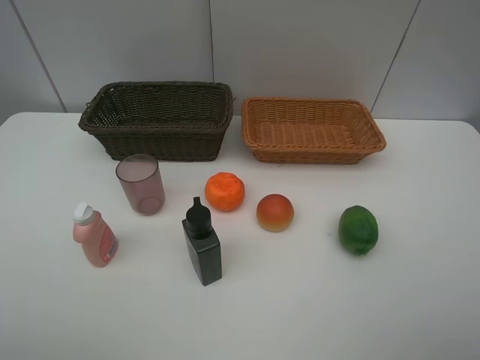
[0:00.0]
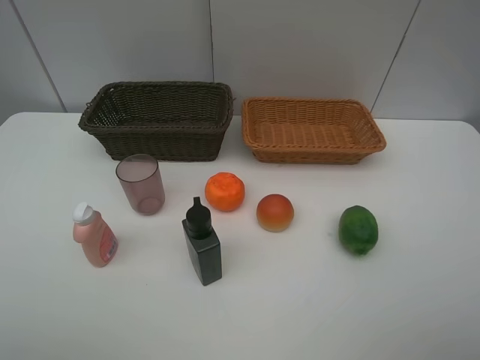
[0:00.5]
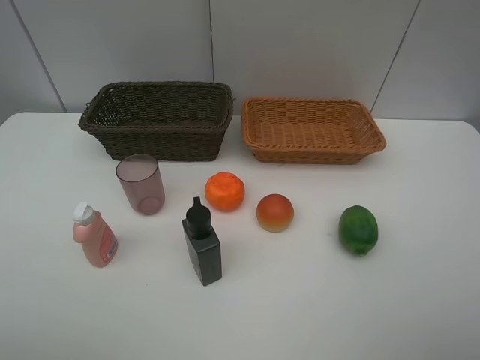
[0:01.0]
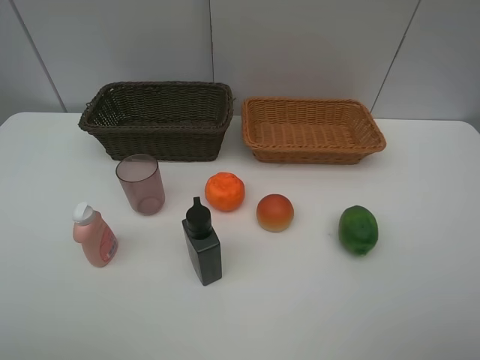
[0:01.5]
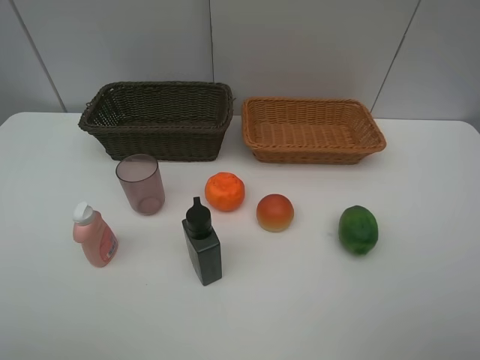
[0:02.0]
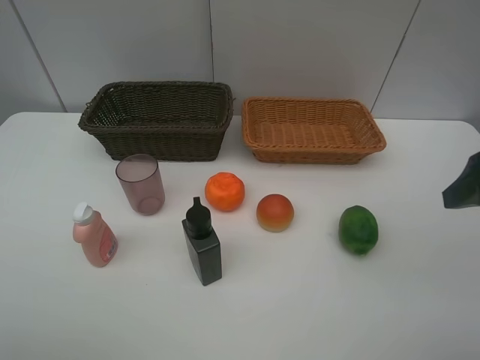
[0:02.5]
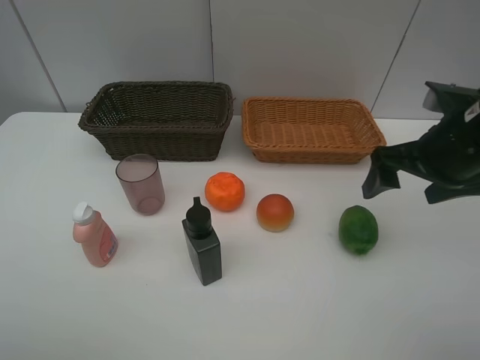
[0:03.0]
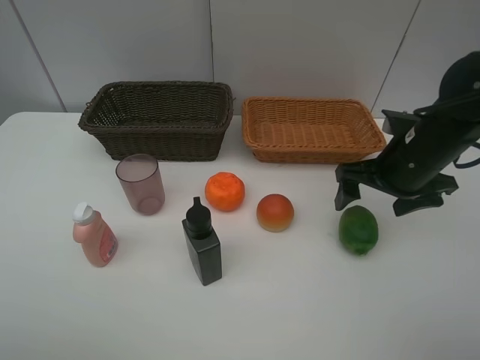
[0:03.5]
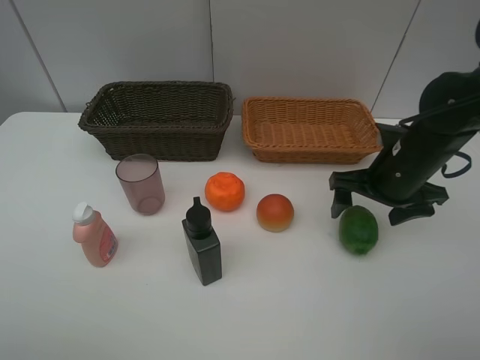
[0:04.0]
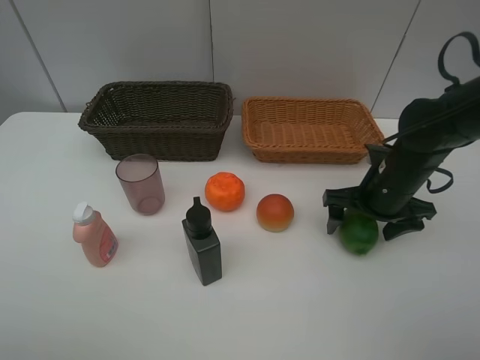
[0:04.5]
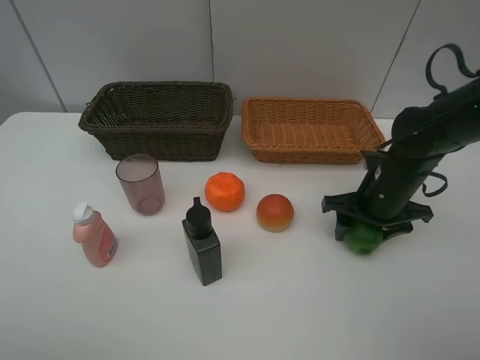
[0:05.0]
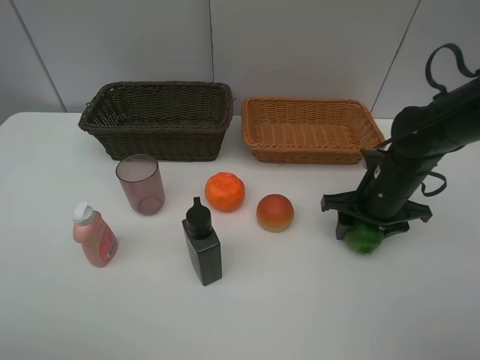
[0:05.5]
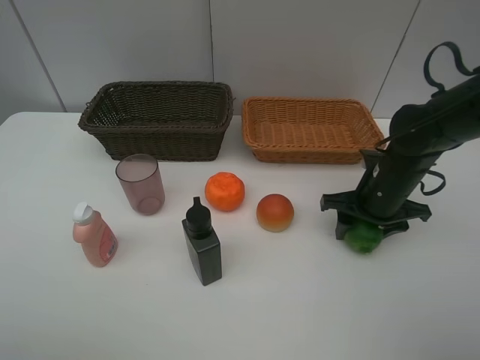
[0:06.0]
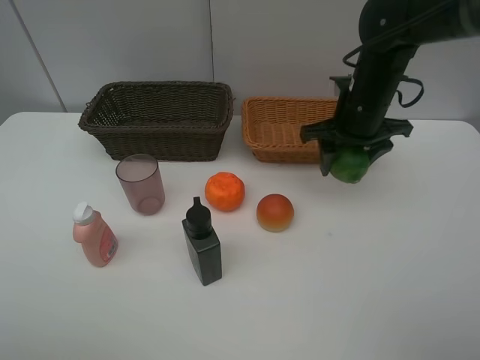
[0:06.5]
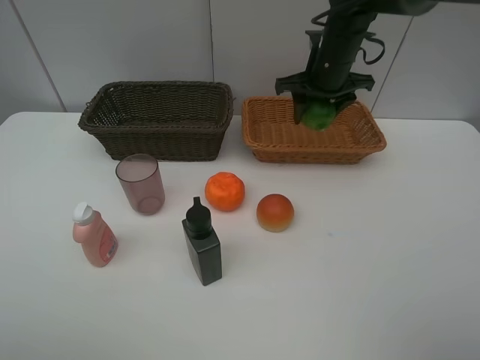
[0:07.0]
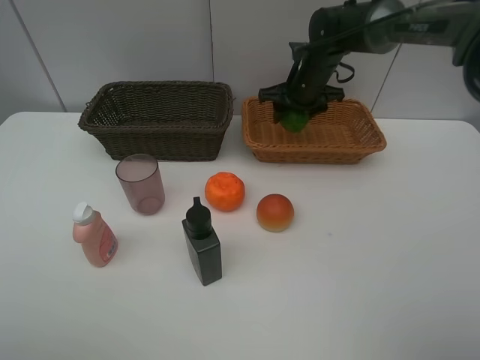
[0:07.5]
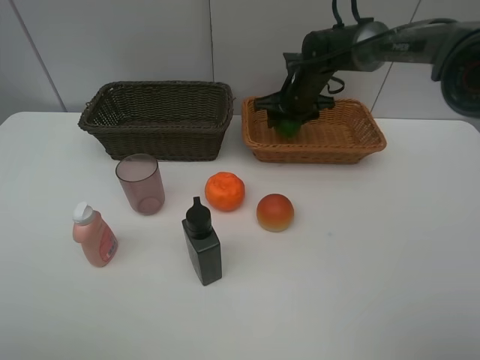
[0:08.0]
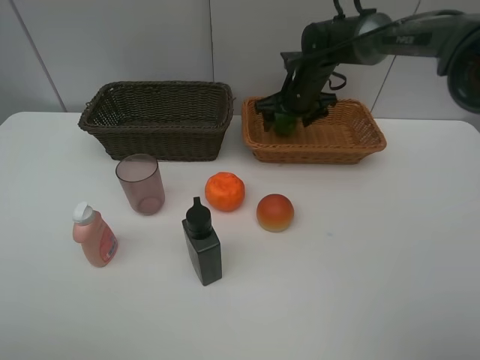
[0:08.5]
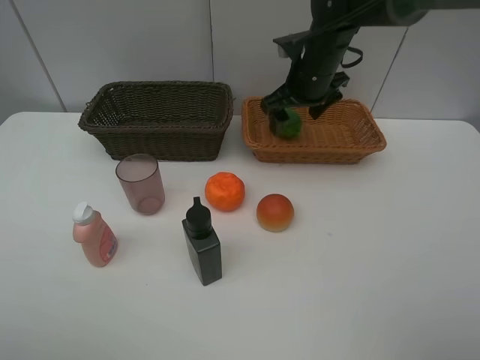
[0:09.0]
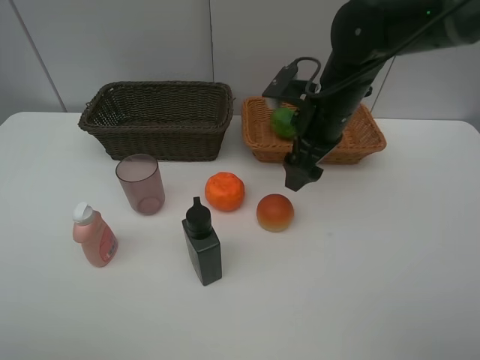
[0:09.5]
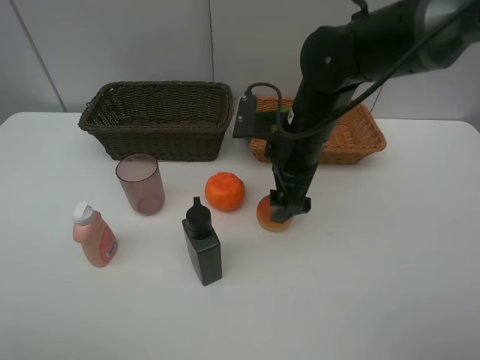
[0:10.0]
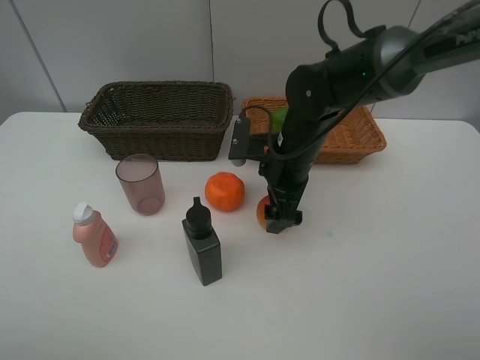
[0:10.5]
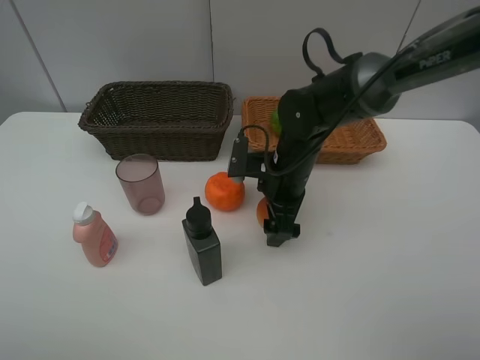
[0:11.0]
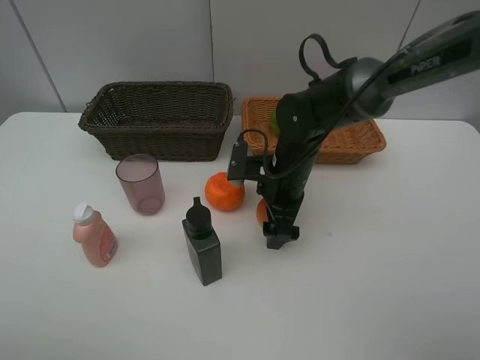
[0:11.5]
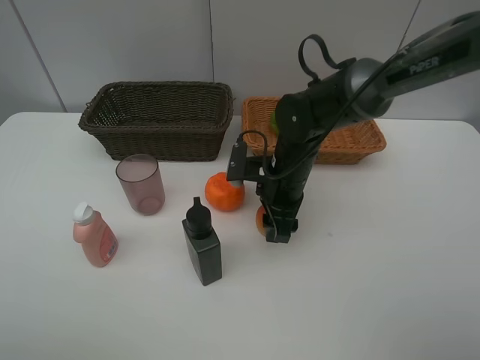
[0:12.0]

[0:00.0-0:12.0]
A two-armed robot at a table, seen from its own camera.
Task of the whole recording: place multiple objects separately in different baskets.
0:02.0 to 0:04.0: The right gripper travels forward and downward by roughly 30 cm.
0:04.0 to 0:06.0: The right gripper closes its fingers.
0:06.0 to 0:08.0: The right gripper goes approximately 25 cm forward and to the left.
0:08.0 to 0:10.0: The right gripper travels backward by roughly 20 cm, and opens up.
0:10.0 to 0:12.0: The right gripper is displaced downward by some 10 cm, and closes up.

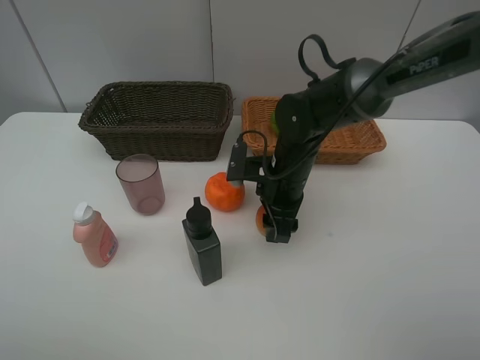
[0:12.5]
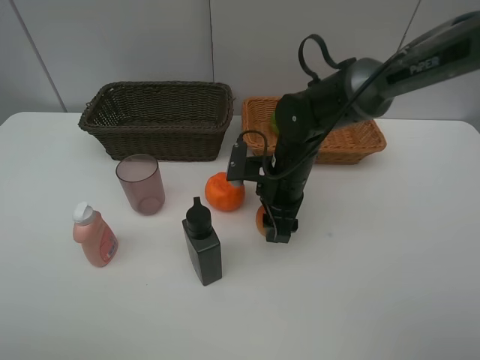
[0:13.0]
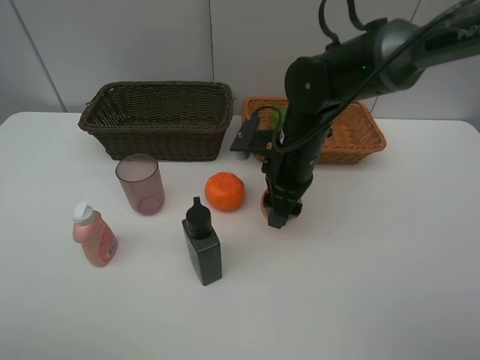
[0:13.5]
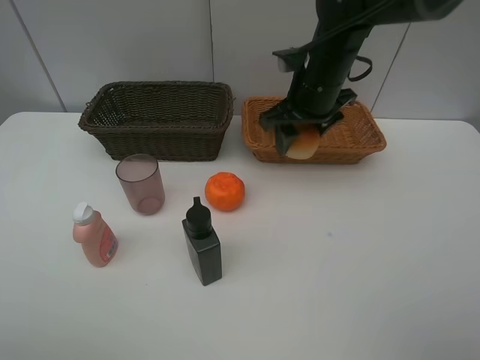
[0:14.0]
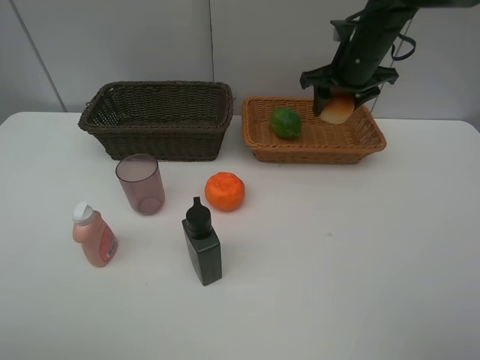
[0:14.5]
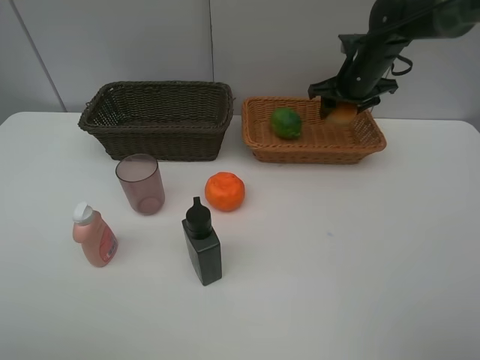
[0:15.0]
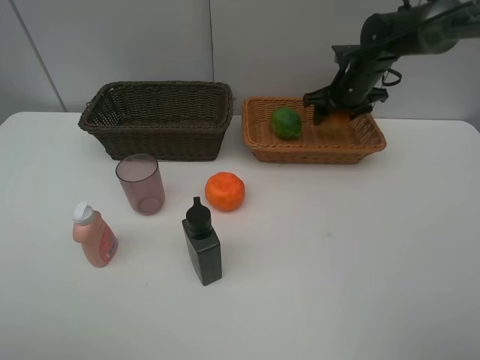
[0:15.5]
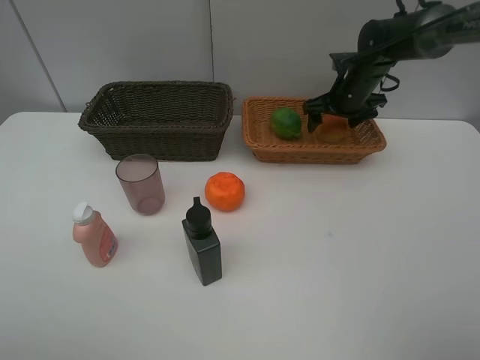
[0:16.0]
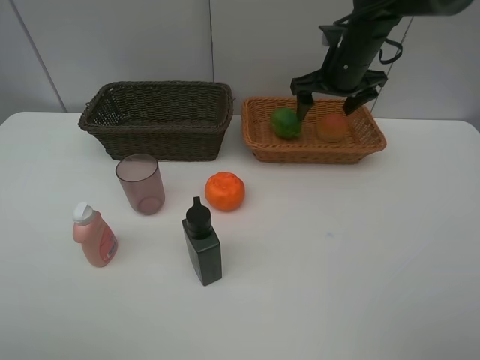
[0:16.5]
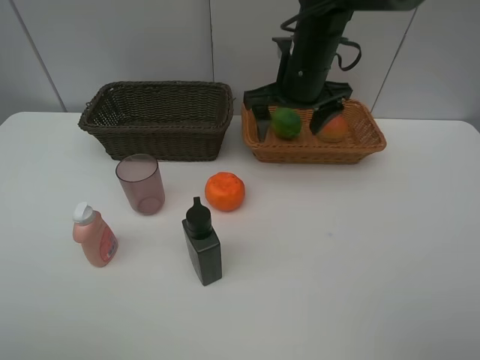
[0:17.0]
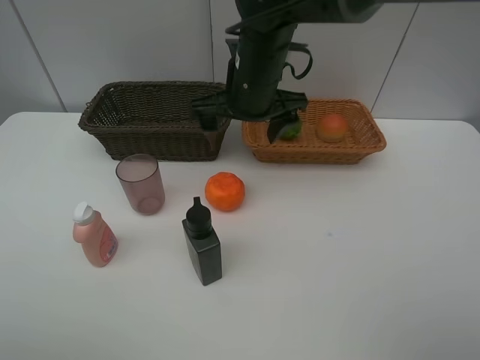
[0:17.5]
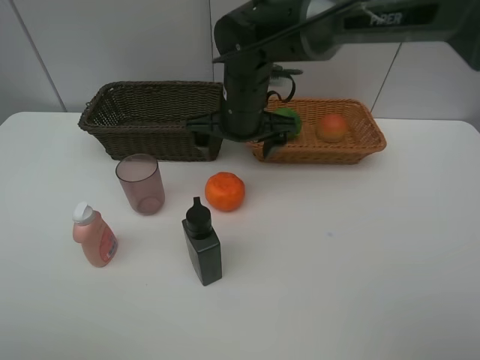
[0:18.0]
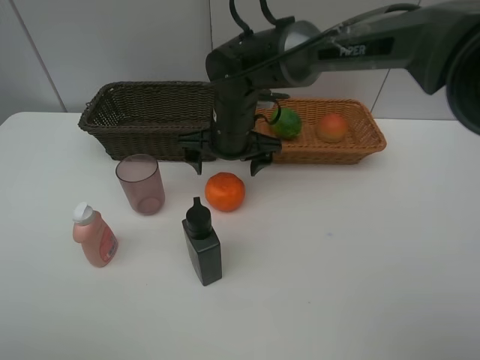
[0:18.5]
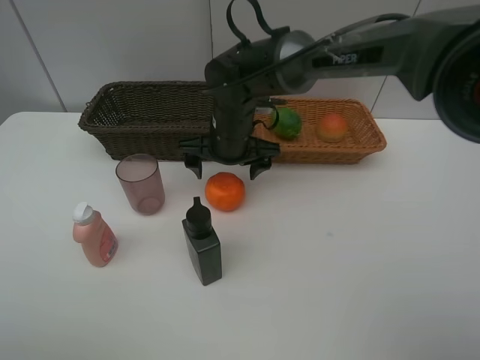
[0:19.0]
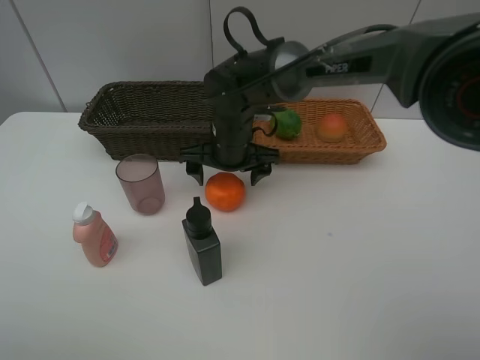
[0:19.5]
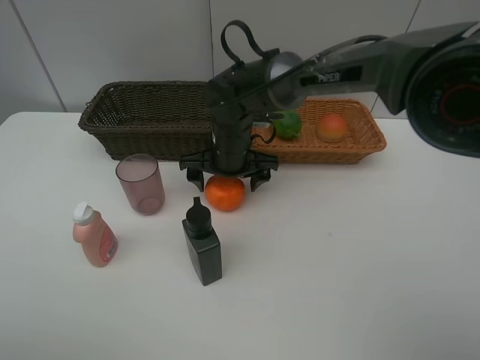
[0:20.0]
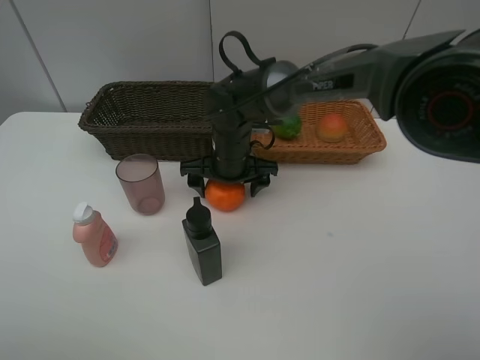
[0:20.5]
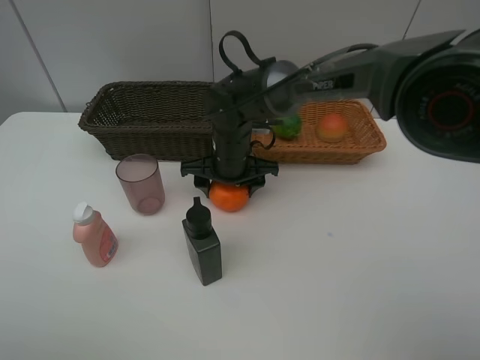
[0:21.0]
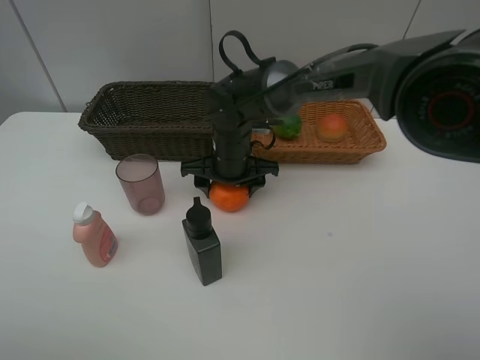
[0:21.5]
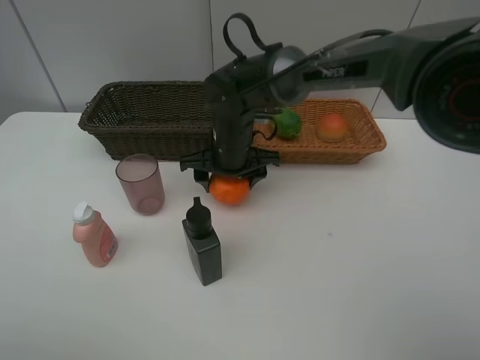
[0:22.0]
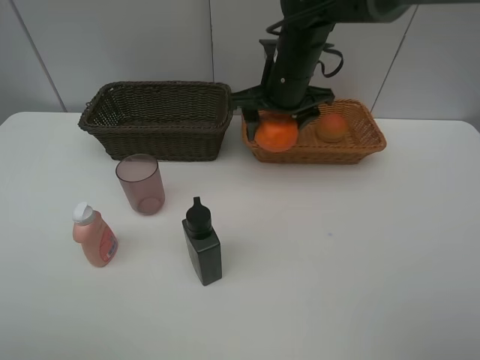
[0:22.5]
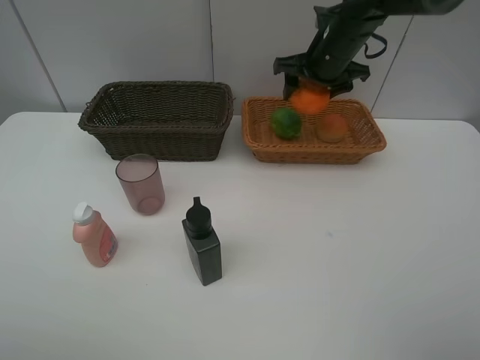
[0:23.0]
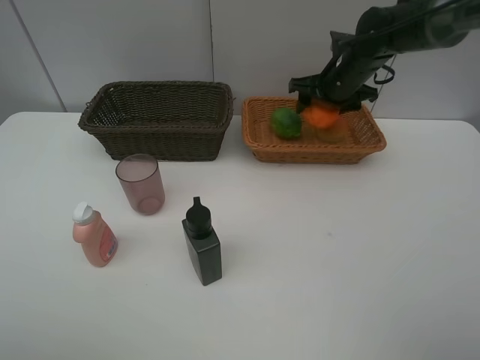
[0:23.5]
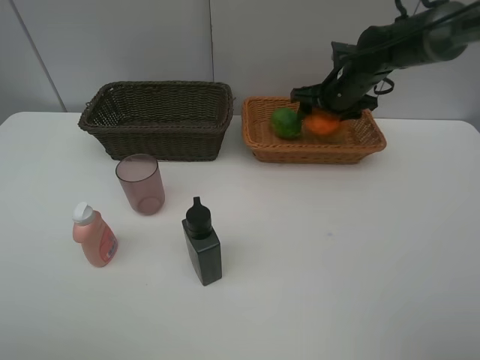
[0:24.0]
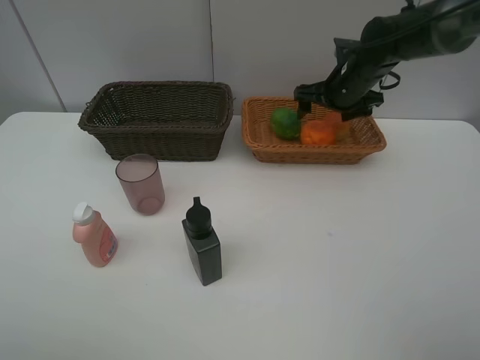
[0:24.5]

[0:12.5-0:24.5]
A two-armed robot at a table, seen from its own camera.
Task of the whole recording: place multiple objects separately in different baskets.
0:12.5 to 0:14.5: The right gripper shifts about 20 cm upward, forward and to the right.
0:14.5 to 0:16.5: The right gripper opens its fingers.
0:16.5 to 0:18.5: The right gripper moves to the left, backward and downward, roughly 20 cm.
0:18.5 to 0:20.5: There are only small adjustments of the grippers.
0:20.5 to 0:22.5: The right gripper heads upward and to the right, covering roughly 15 cm.
0:22.5 to 0:24.5: The right gripper is displaced to the right and forward by roughly 10 cm, and opens up.

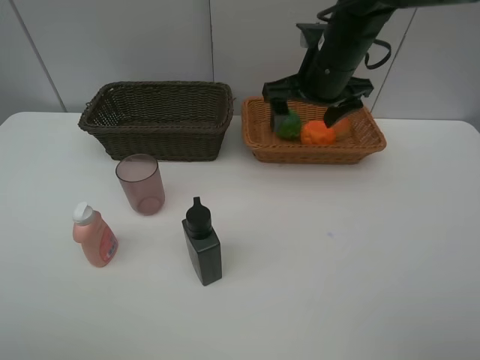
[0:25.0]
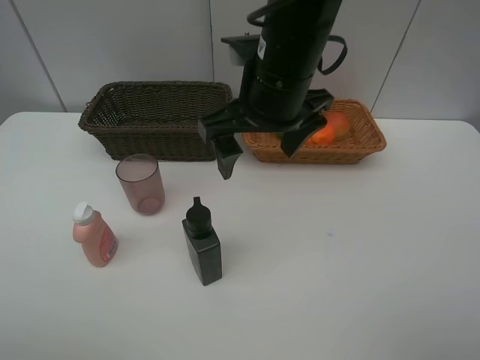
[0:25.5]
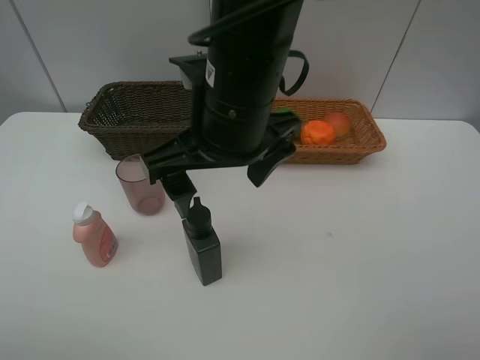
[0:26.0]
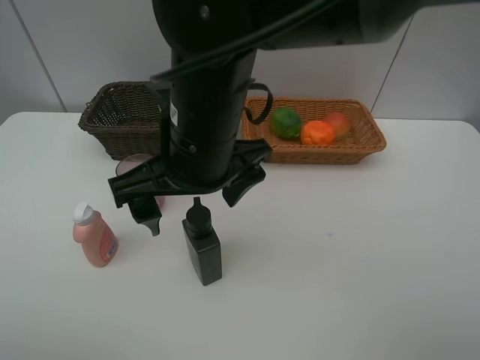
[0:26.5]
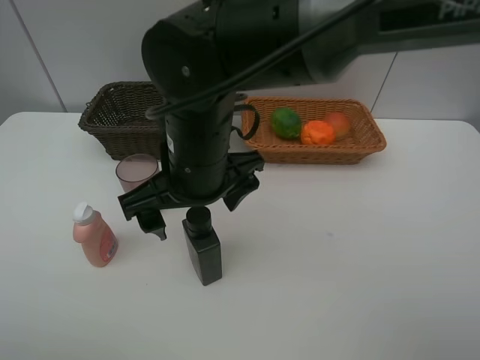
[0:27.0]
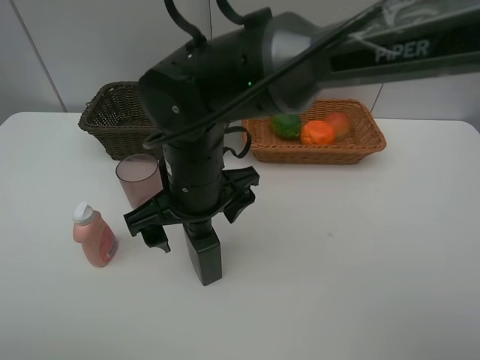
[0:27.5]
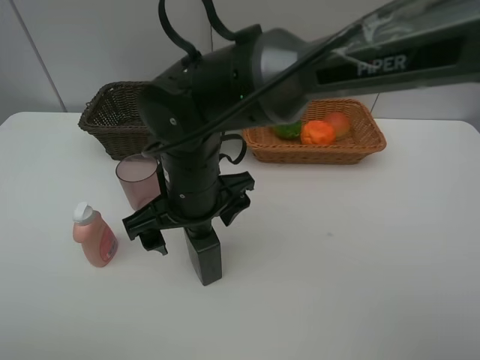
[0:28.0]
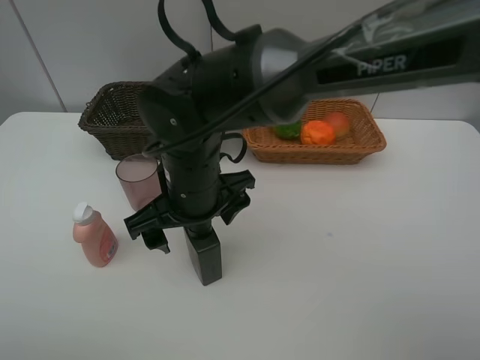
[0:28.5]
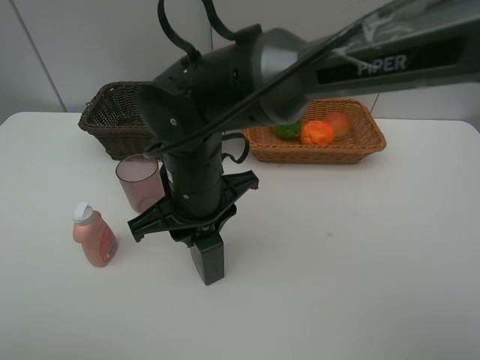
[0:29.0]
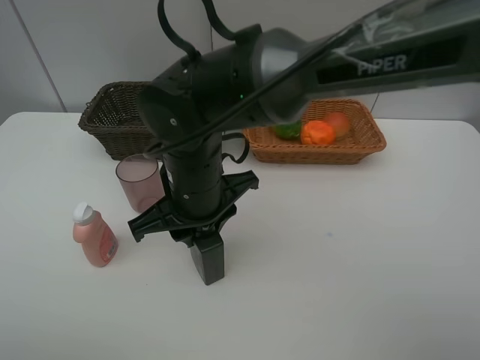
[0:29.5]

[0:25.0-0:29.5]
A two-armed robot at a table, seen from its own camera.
Task of the whole recording: place multiple objects separately in different baskets.
0:25.0 to 0:27.0: The right gripper moves to the left and backward, roughly 20 cm.
0:27.0 to 0:29.5: The right gripper closes up.
